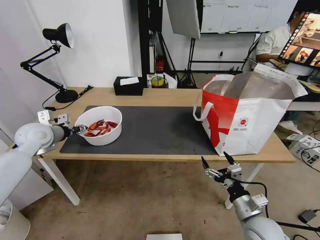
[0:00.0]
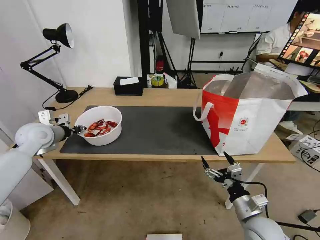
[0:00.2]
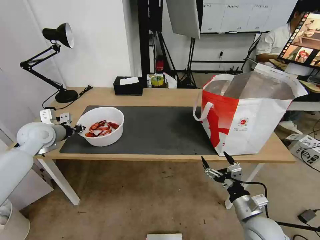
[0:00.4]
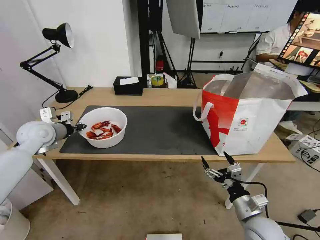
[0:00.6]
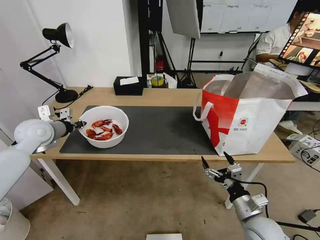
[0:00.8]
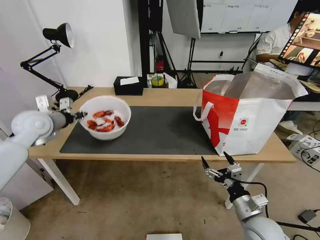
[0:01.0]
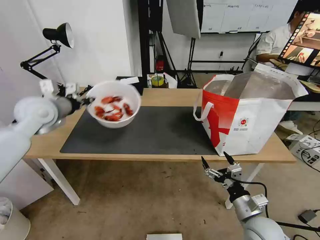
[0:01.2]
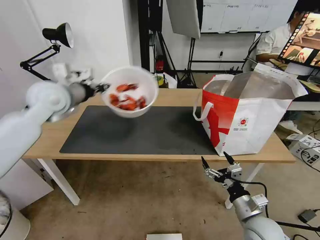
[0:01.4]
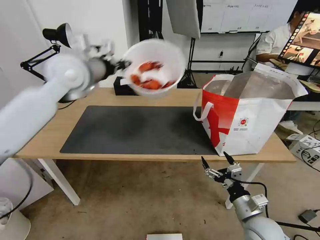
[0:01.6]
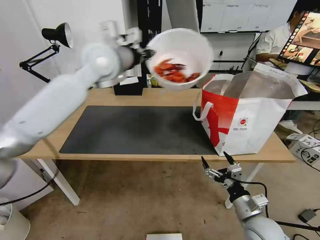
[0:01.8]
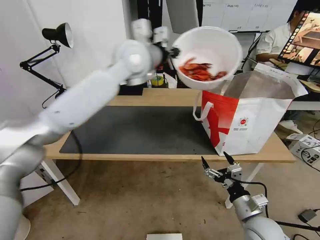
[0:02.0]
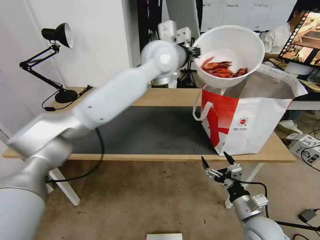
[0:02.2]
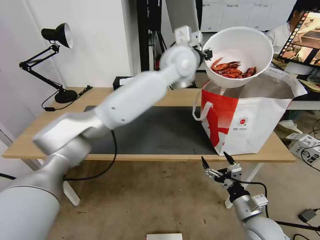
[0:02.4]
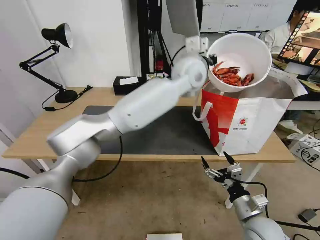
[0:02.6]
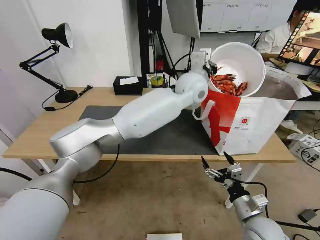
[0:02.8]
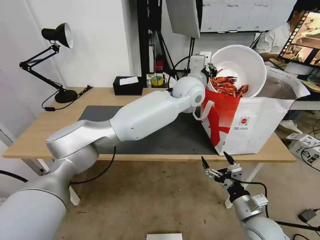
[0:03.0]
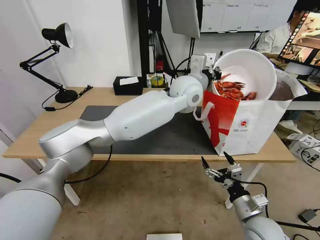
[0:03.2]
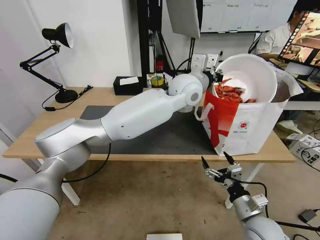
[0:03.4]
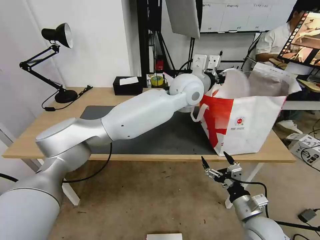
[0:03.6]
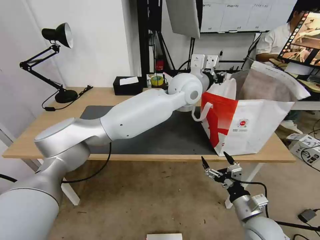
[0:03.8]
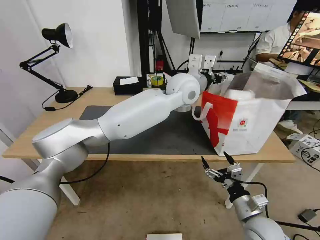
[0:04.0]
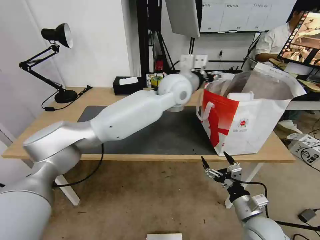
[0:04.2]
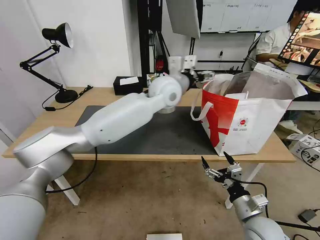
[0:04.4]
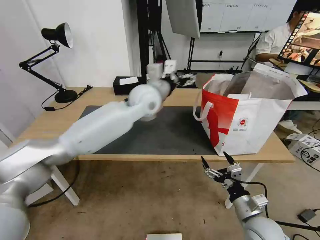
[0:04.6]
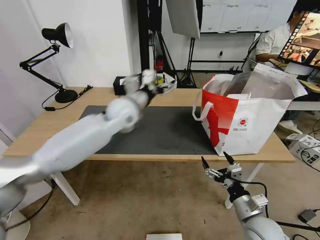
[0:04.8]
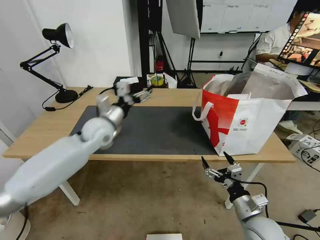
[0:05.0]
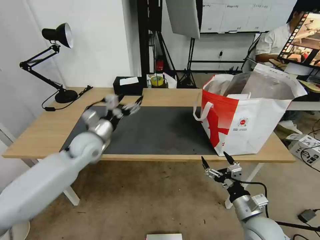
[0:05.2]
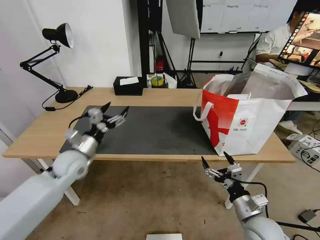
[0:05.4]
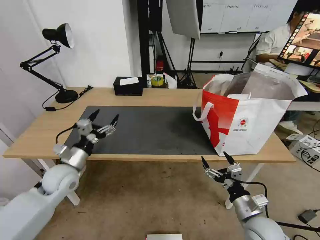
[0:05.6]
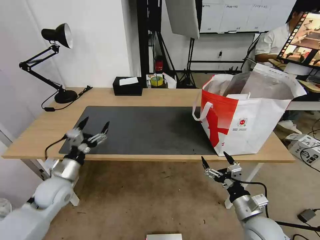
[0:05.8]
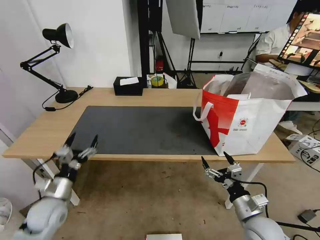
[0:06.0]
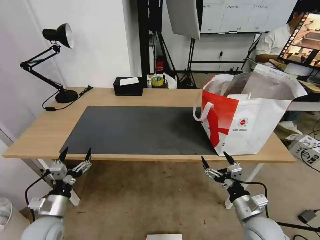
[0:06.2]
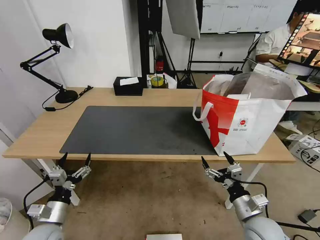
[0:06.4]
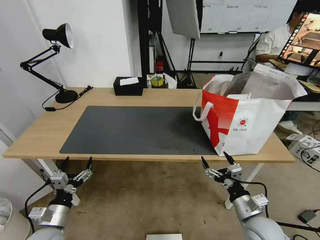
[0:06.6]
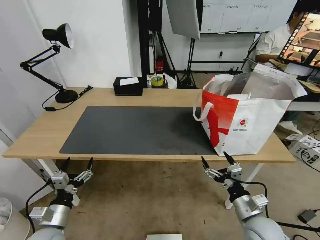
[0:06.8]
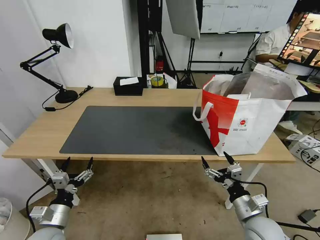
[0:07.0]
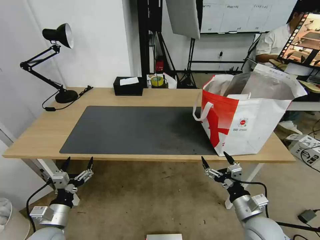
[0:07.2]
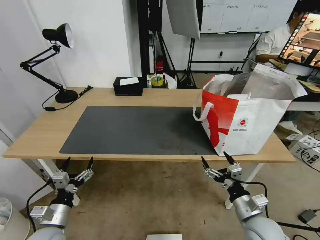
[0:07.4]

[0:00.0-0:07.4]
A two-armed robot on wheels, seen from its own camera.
Task of the whole recording: Pick up the trash from the table and place it into the takeout bag.
0:00.0 to 0:01.4: The left gripper is displaced upward and to the right by about 20 cm, and closes its fingers.
0:01.4 to 0:03.0: The left gripper heads to the right, covering roughly 35 cm.
0:03.0 to 0:04.4: The left gripper moves to the left, roughly 10 cm, and opens up.
0:04.4 to 0:06.0: The left gripper travels to the left, downward and backward by approximately 50 cm.
0:06.0 to 0:07.4: The left gripper is displaced backward by about 5 cm.

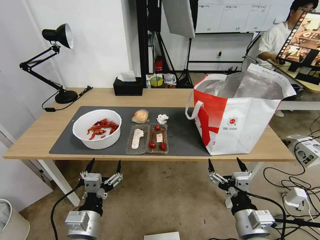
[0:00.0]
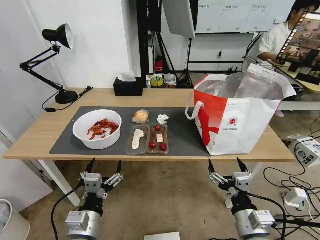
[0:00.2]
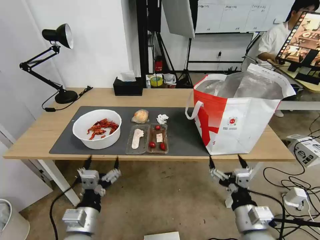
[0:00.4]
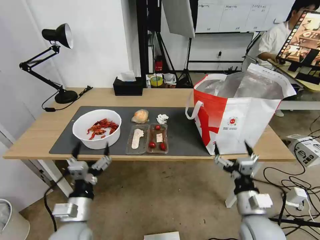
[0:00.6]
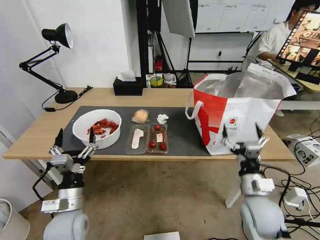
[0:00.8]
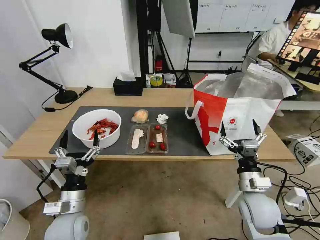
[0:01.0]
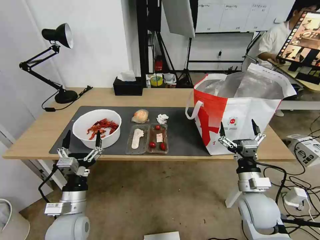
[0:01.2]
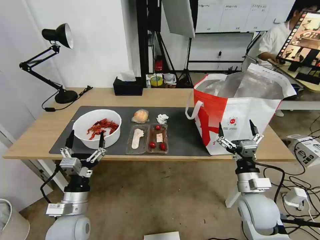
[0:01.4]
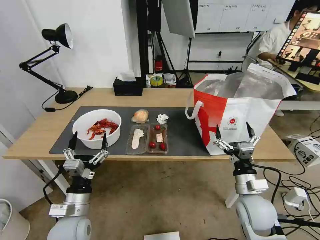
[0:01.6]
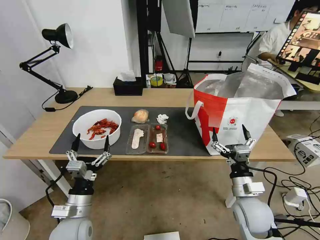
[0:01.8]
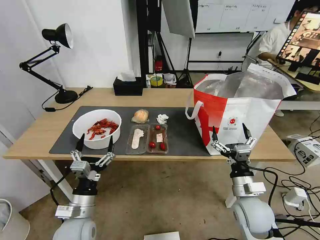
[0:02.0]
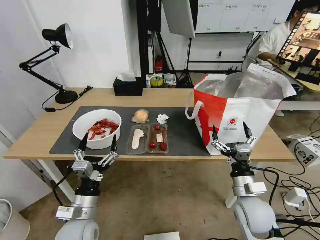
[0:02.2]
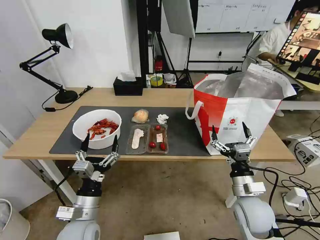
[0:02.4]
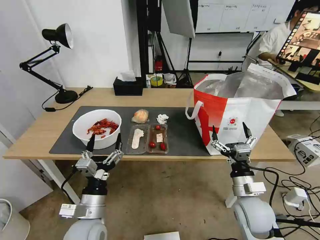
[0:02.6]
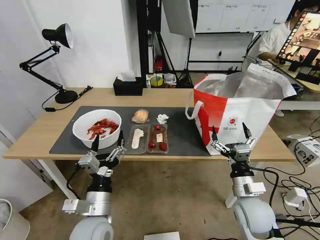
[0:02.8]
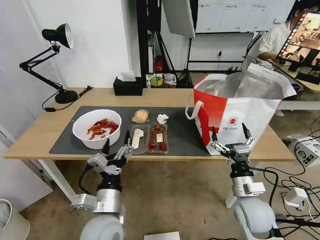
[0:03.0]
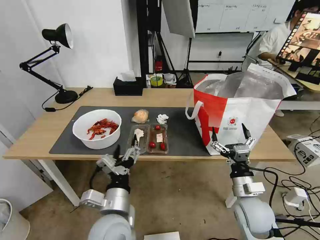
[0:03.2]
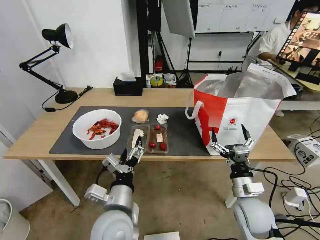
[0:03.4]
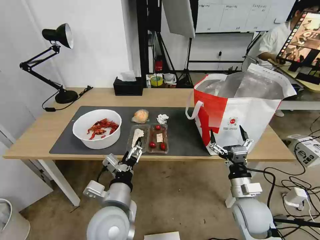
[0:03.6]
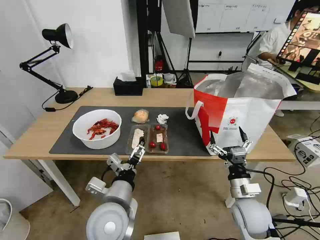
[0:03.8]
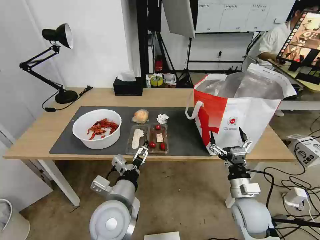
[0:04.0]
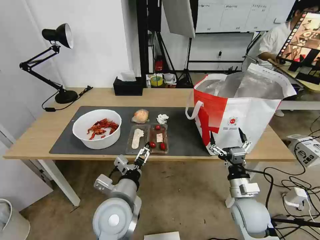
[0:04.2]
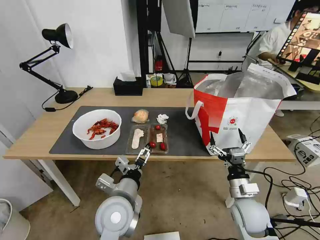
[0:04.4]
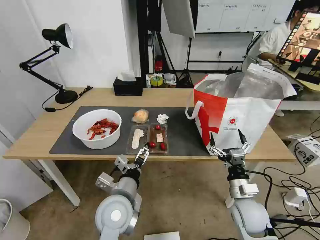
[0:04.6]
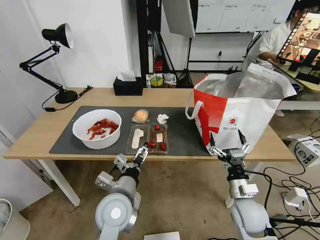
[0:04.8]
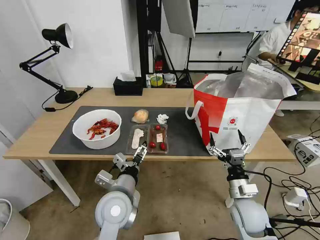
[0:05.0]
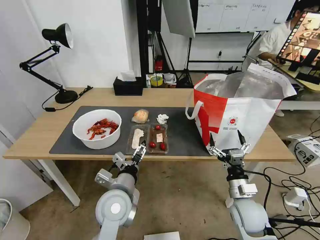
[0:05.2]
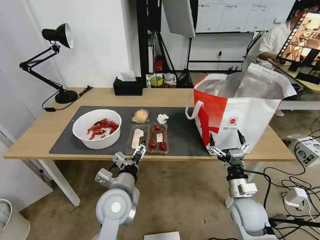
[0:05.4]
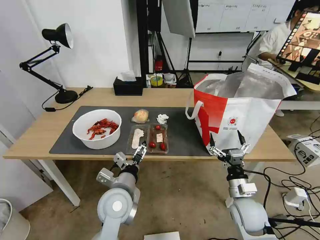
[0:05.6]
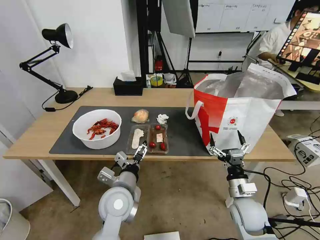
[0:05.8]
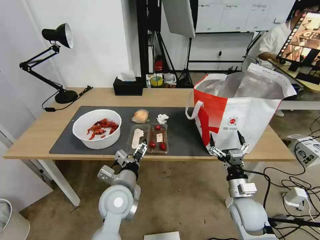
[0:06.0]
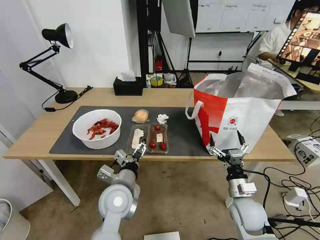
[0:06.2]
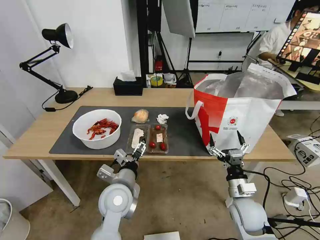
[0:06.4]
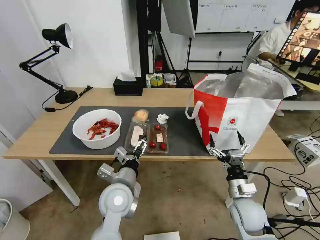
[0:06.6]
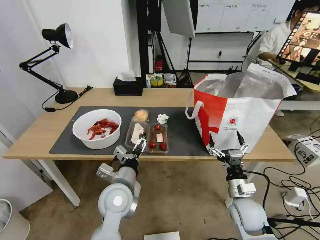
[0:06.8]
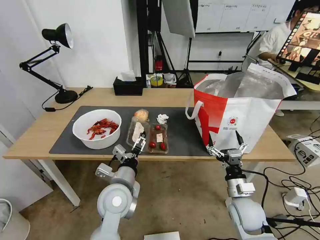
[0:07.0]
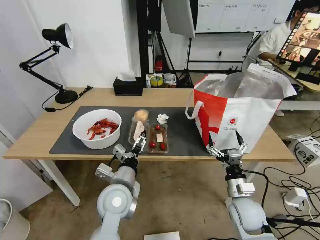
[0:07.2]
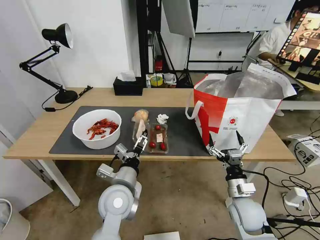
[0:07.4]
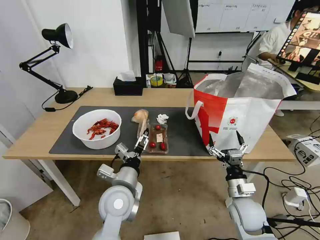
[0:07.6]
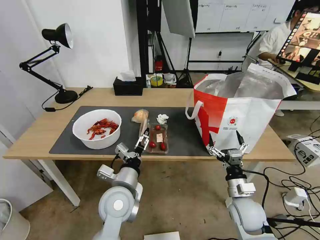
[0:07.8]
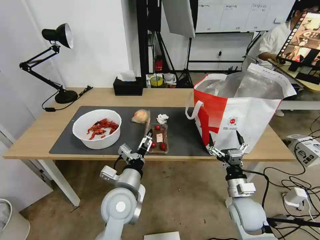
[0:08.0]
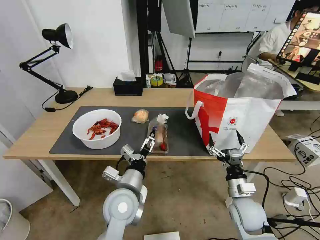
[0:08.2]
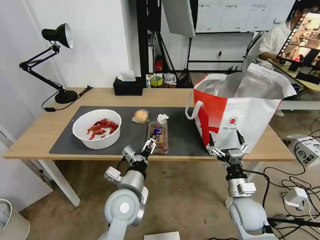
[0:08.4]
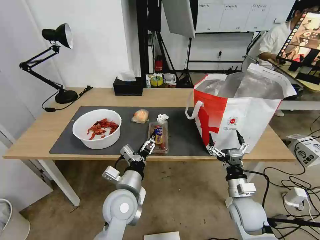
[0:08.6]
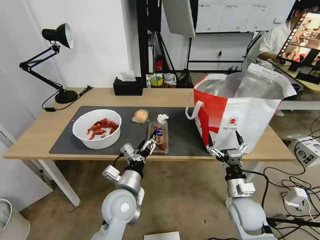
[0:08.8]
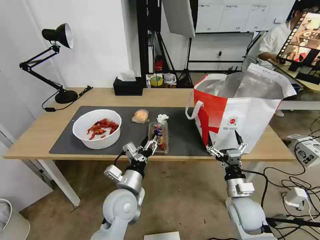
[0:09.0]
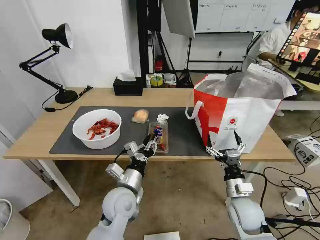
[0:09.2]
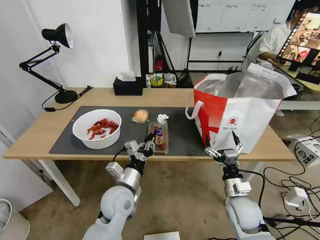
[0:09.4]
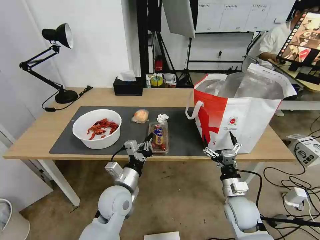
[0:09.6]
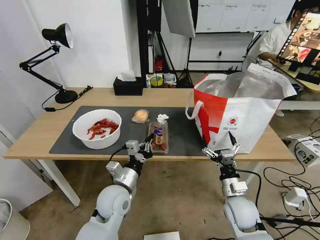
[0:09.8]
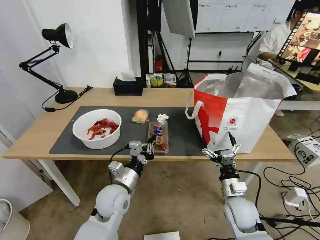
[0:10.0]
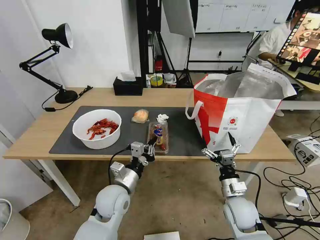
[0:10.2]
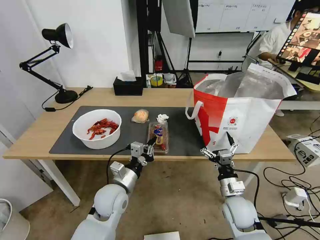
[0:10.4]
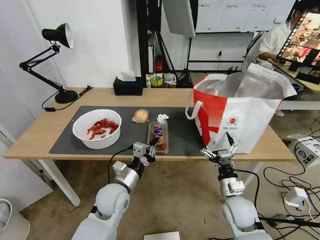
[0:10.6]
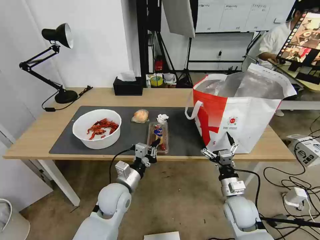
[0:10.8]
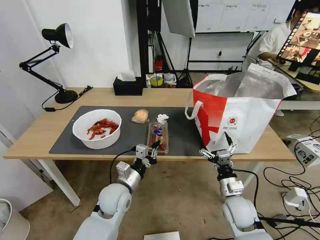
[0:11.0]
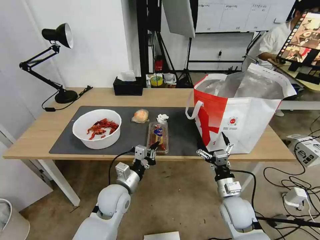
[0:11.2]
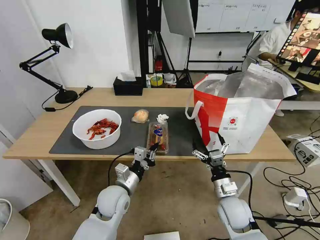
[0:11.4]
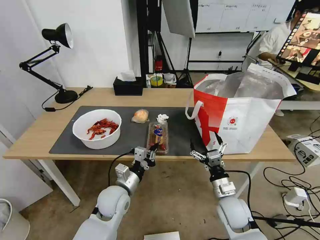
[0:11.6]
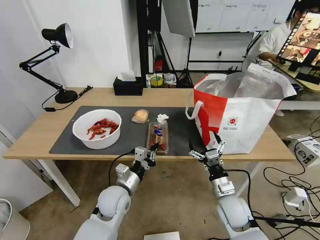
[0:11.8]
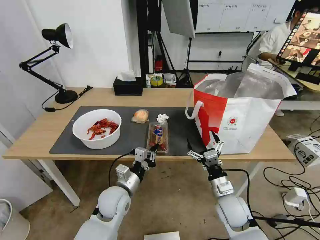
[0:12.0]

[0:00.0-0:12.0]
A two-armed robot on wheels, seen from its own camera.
Task of the whole recording: Pick up the trash from the table and place it into the takeout bag.
0:01.6 to 0:03.0: The left gripper goes roughly 10 cm to the right.
0:03.0 to 0:04.4: The left gripper changes place by some 5 cm.
0:04.4 to 0:07.6: The grippers stay close to where they were, moving slightly.
0:07.6 to 0:09.0: The left gripper closes its fingers.
0:09.0 to 0:10.4: The left gripper closes up.
0:10.4 to 0:12.0: The grippers make only small movements.

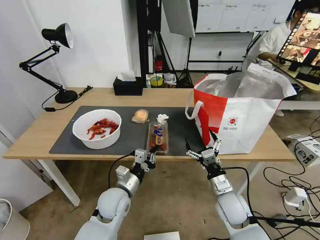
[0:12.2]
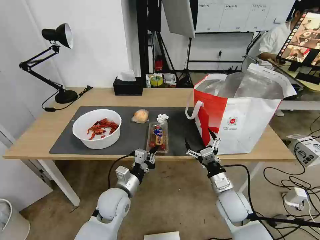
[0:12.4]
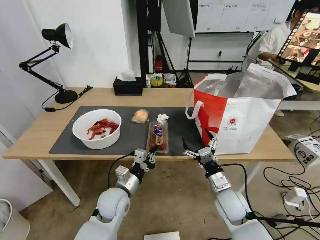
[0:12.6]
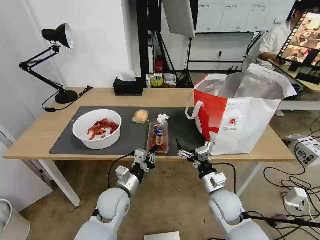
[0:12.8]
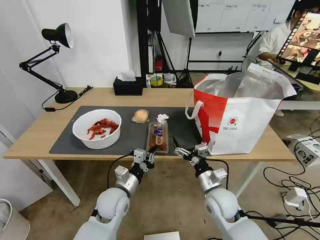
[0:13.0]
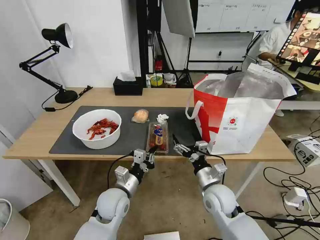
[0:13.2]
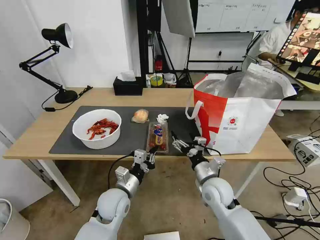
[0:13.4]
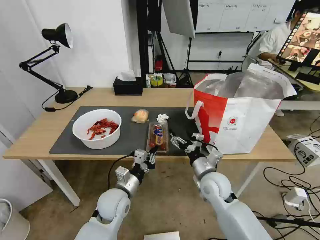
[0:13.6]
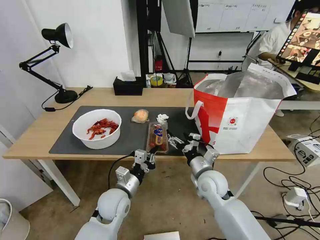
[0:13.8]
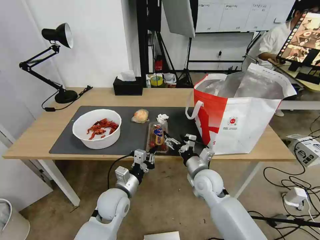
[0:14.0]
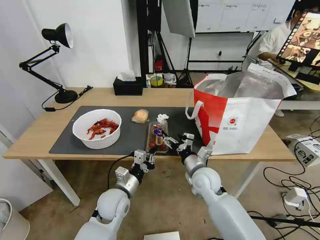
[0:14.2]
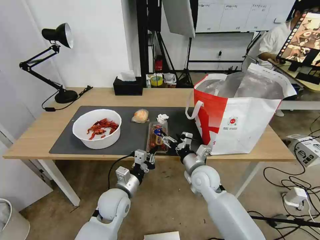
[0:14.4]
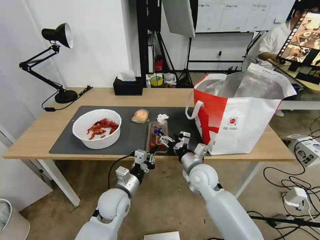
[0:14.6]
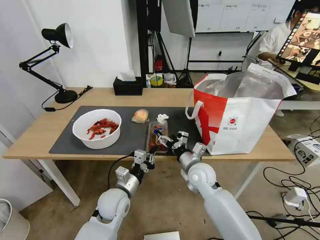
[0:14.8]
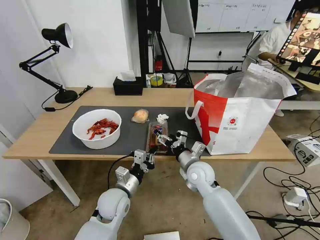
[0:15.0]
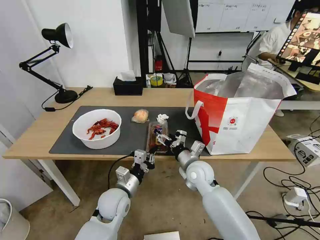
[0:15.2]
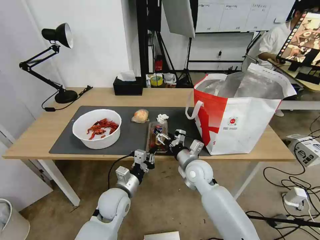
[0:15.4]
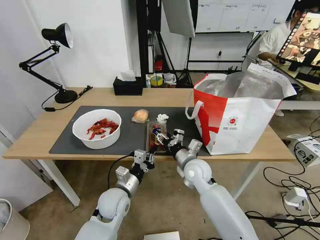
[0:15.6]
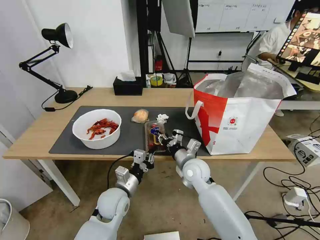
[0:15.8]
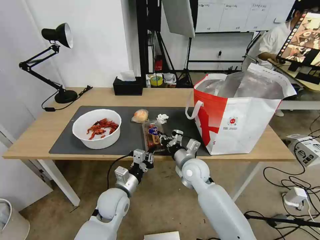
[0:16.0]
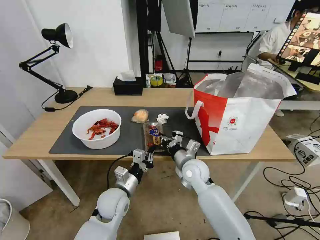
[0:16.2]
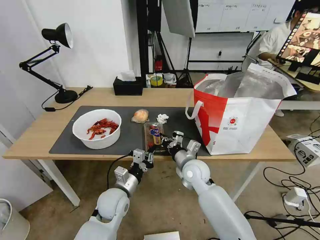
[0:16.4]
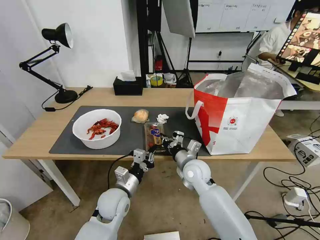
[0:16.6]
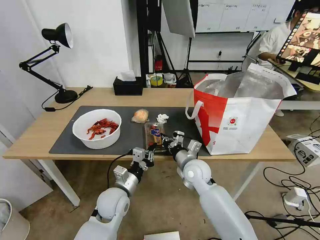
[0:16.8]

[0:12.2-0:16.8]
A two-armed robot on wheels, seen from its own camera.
Task of the whole recording: Pick up the trash from the table and place it into the takeout bag.
0:12.2 to 0:13.8: The right gripper goes some 10 cm forward and to the left.
0:13.8 to 0:15.2: The right gripper shifts by approximately 5 cm.
0:15.2 to 0:16.8: The right gripper closes its fingers.
